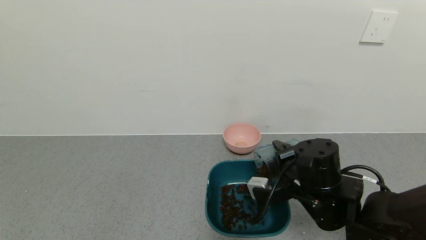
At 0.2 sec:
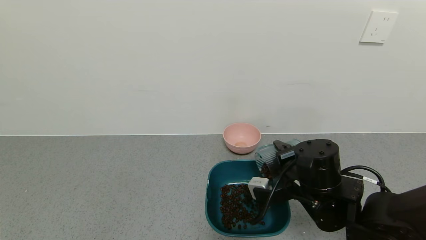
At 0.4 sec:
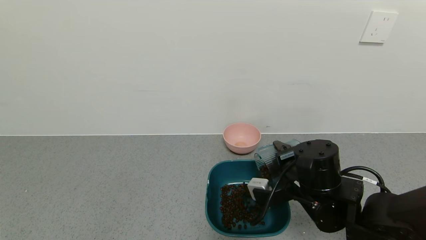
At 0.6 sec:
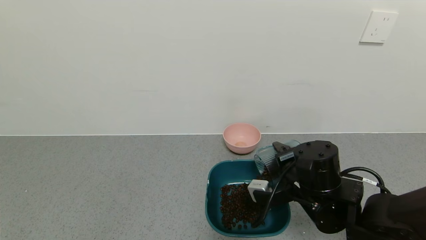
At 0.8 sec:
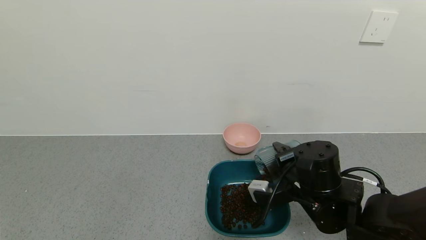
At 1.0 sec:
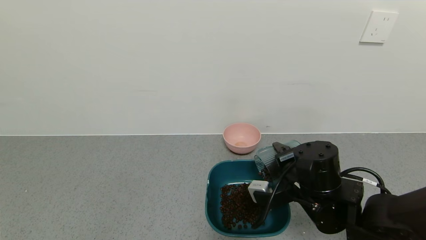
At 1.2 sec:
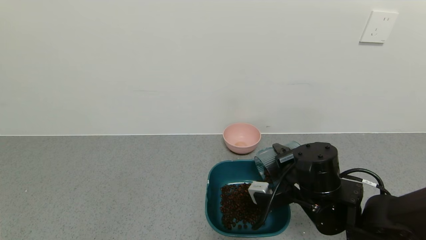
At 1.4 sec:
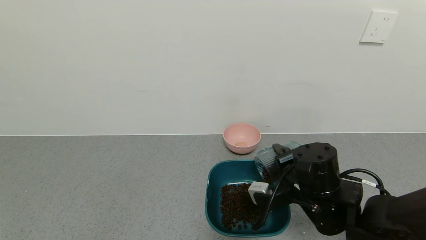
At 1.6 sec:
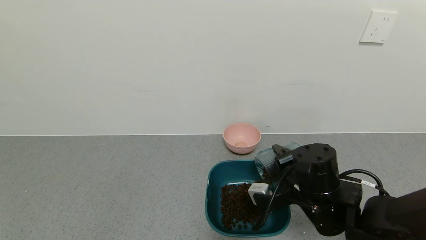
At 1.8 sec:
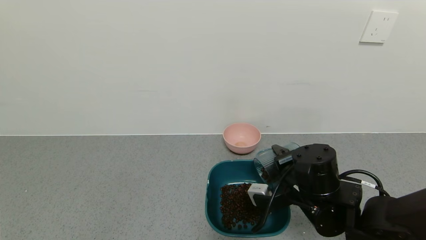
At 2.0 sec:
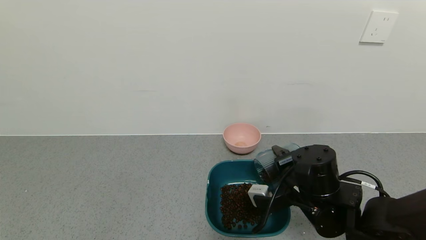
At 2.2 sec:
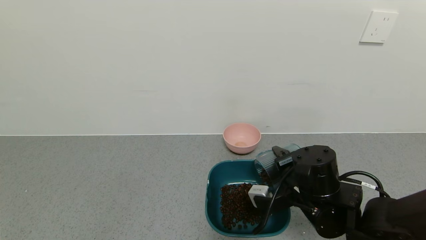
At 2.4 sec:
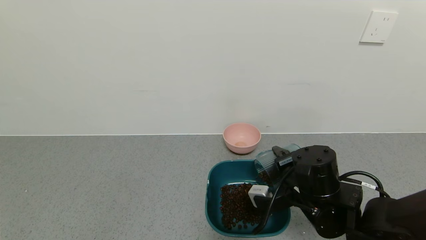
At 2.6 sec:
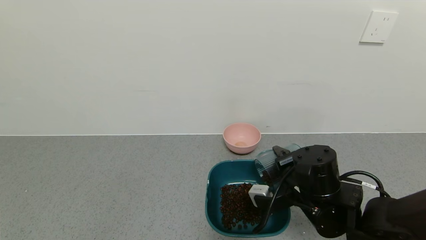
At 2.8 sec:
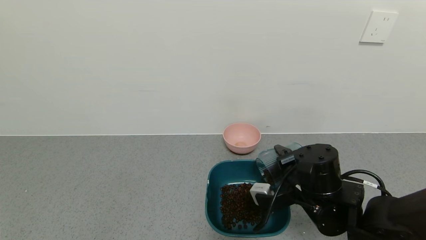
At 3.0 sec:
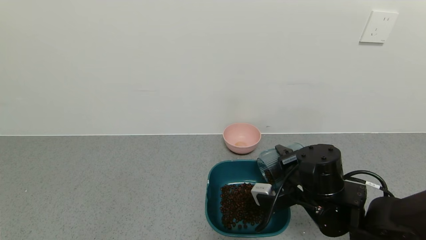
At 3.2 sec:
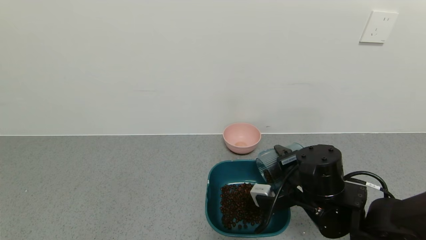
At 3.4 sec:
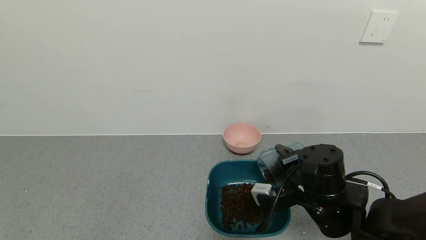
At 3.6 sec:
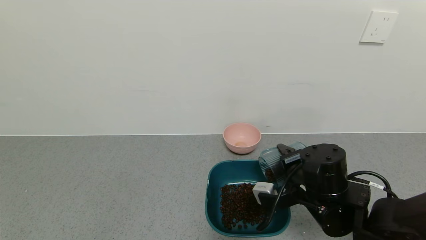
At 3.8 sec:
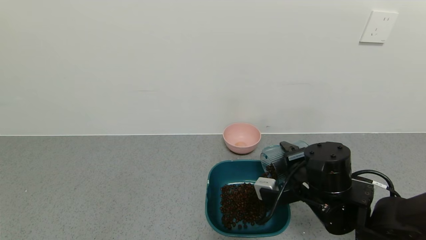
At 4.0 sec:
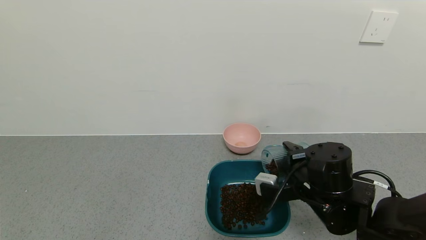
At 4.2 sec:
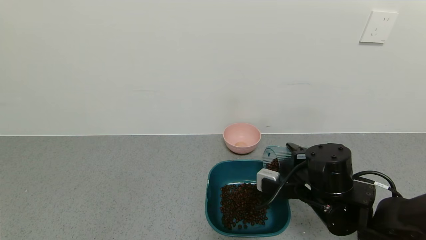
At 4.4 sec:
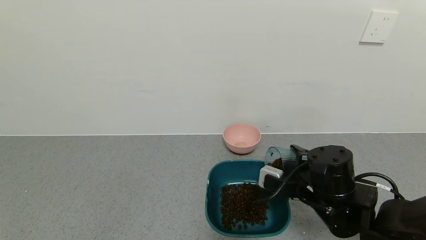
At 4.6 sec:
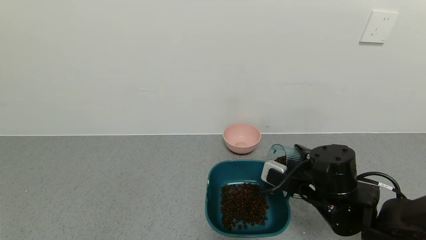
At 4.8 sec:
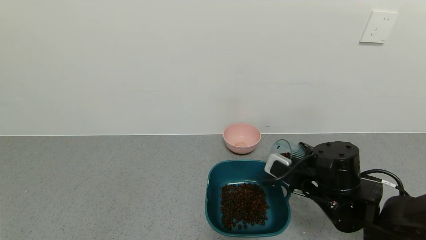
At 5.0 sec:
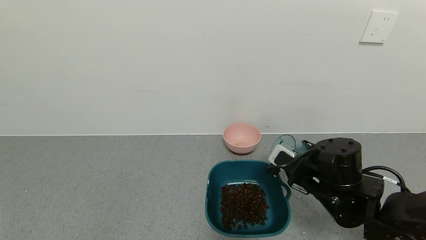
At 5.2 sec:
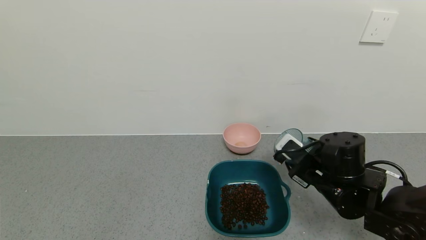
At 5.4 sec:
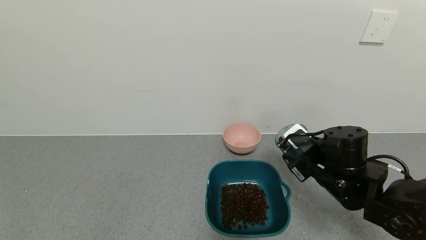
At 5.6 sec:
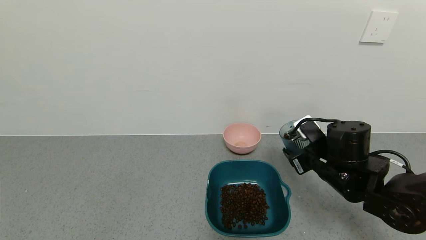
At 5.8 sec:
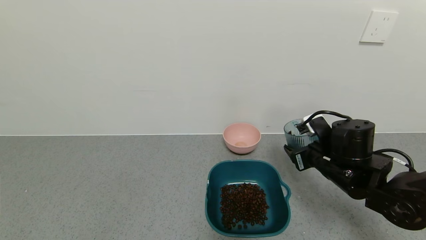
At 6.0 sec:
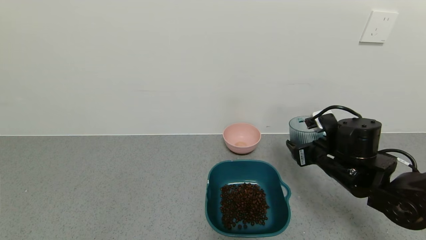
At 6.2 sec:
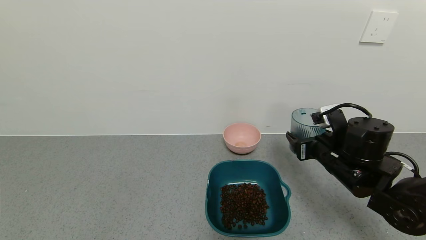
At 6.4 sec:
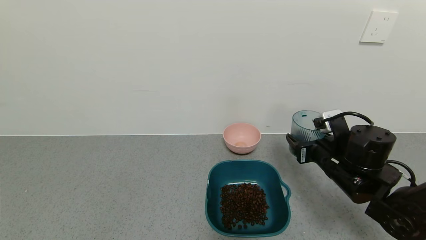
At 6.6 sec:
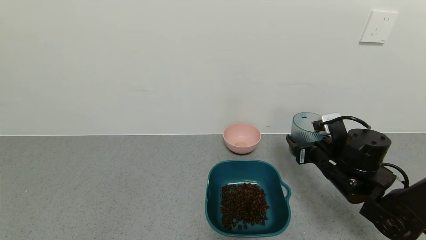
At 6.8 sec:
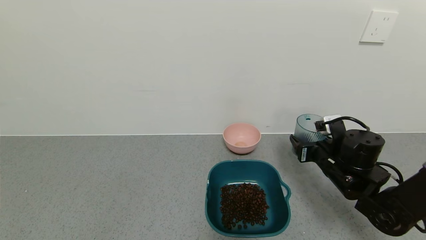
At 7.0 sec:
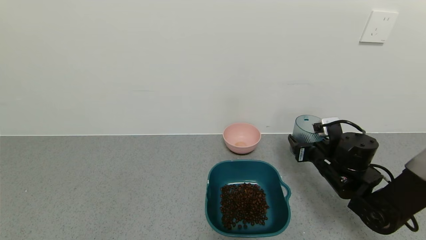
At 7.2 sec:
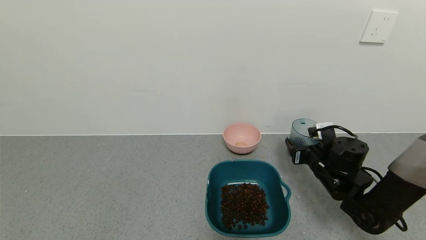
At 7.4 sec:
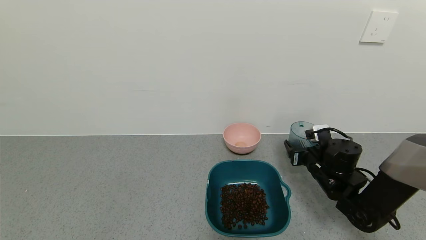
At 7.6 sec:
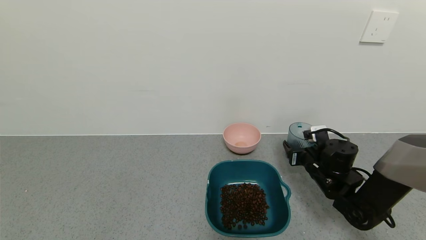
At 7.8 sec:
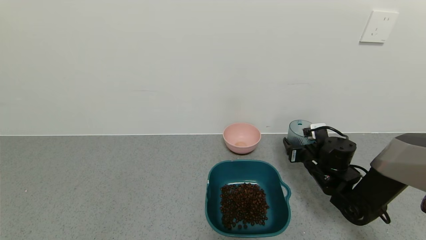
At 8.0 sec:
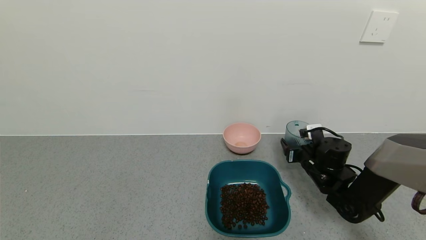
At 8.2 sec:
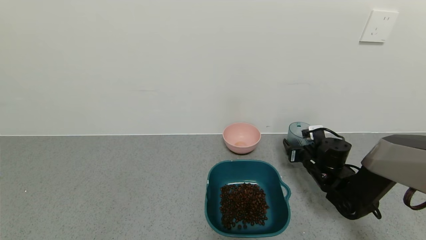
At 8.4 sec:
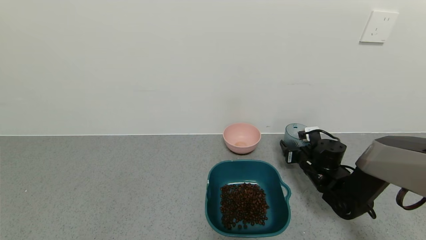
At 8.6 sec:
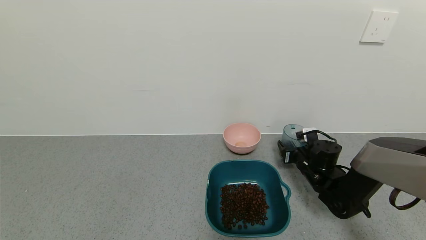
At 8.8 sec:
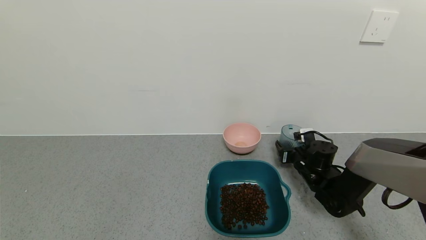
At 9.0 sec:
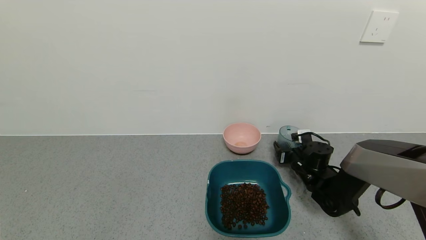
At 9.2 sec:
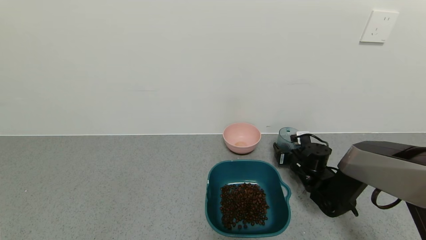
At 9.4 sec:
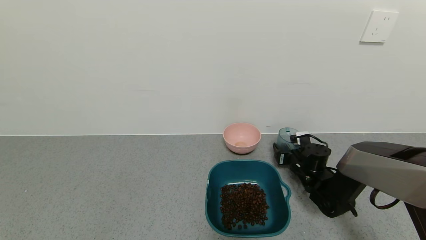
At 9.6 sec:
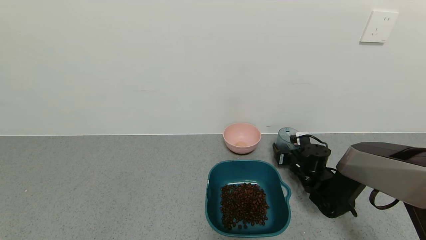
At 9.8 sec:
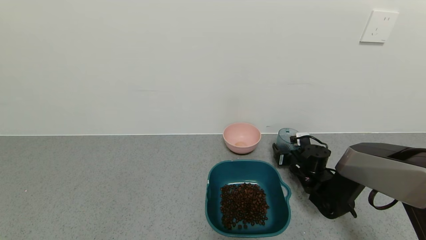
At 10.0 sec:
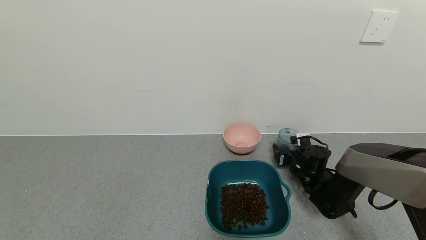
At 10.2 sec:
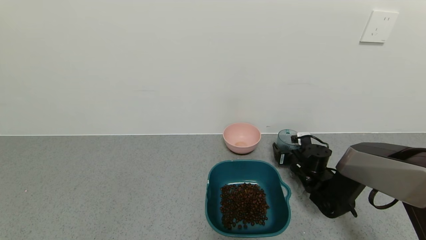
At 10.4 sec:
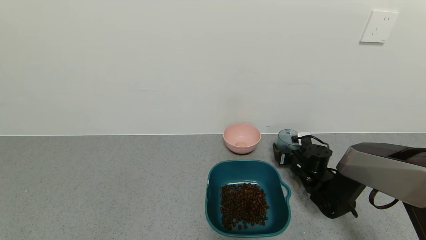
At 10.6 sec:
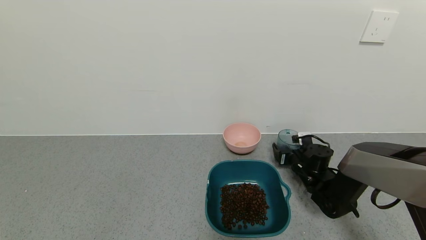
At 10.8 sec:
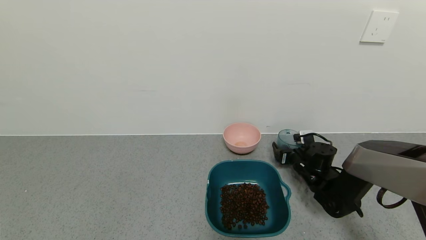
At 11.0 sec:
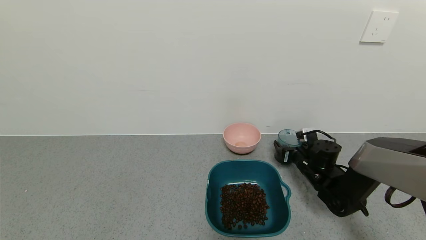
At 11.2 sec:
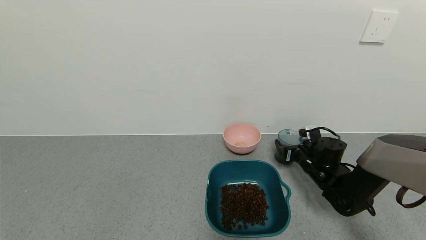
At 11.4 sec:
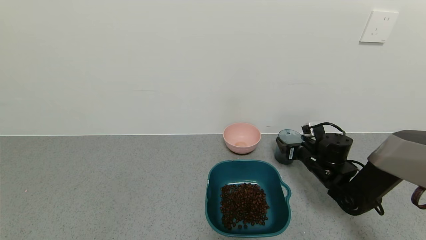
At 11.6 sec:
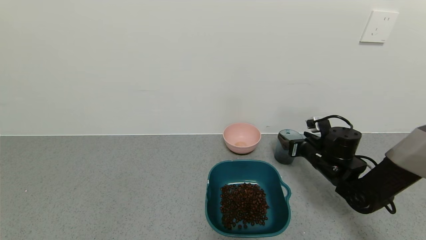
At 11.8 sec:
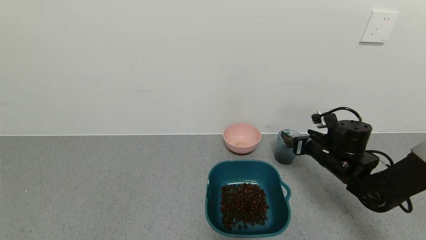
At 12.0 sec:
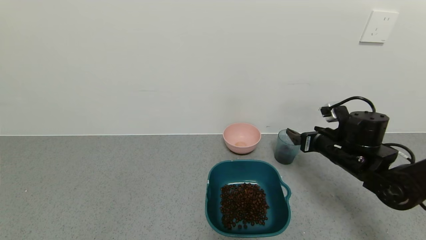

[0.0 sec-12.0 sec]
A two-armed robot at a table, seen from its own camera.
Task of the whole recording: use a gripper to pick up the cup and pour the solid into a bowl or tray.
Step, 0.0 sec to 5.4 sec: Pour the coffee beans into the green bowl with the right gripper.
Step, 5.6 sec to 12.0 sec: Place the glass cup with the right gripper.
0.0 sec to 3.0 sec: Both grippers stay about where they are.
4.4 sec to 6.0 sec: The right gripper heads to the right, covering some 5 cm.
6.0 sec to 7.6 sec: The right gripper moves downward and forward, about 10 cm.
7.6 sec to 9.0 sec: The right gripper travels forward by about 5 cm.
9.0 sec to 10.4 sec: The right gripper opens its fingers.
10.4 sec to 12.0 sec: The right gripper is displaced upward and backward by approximately 15 cm.

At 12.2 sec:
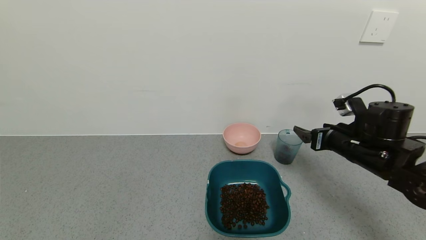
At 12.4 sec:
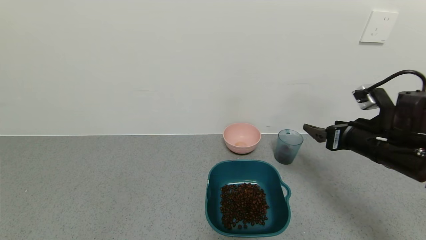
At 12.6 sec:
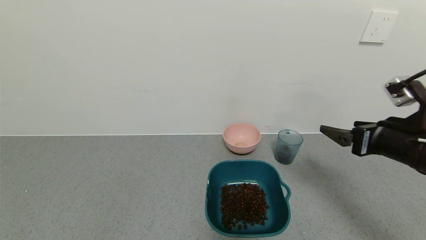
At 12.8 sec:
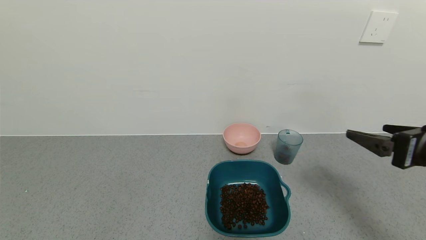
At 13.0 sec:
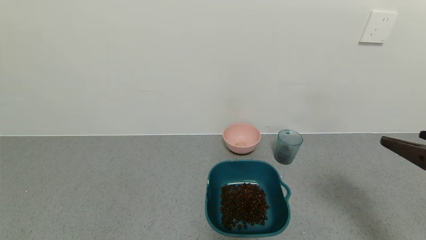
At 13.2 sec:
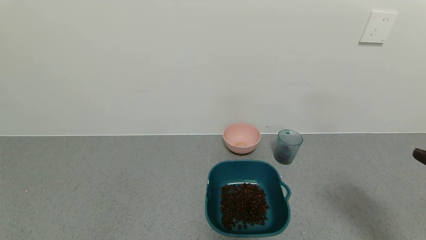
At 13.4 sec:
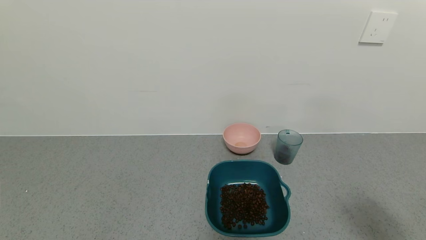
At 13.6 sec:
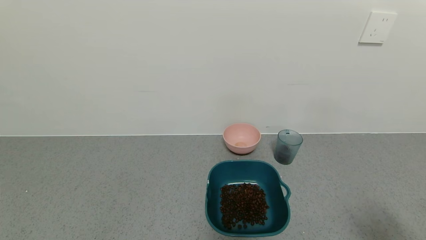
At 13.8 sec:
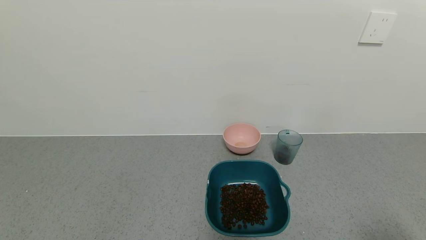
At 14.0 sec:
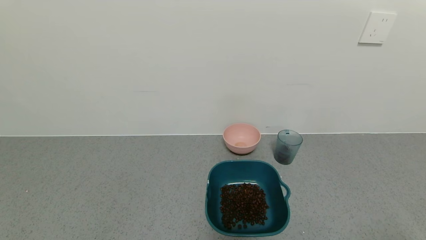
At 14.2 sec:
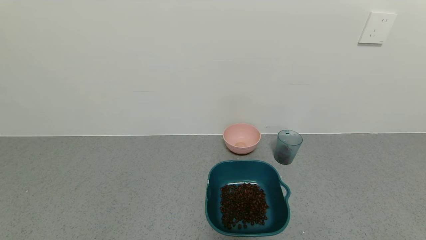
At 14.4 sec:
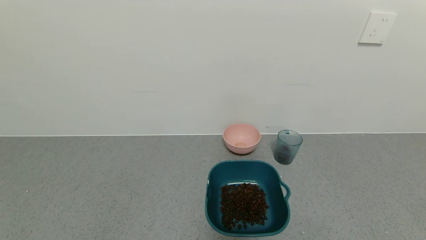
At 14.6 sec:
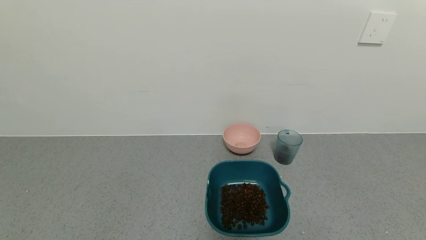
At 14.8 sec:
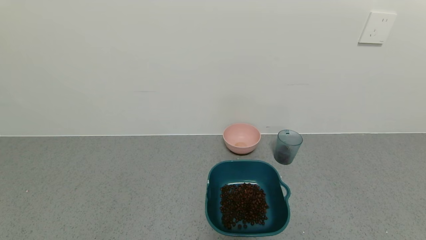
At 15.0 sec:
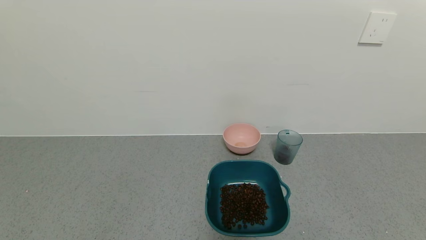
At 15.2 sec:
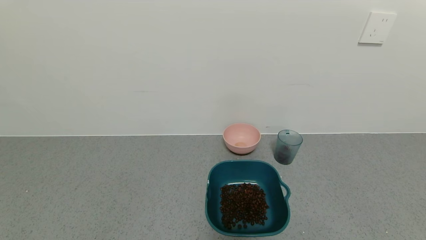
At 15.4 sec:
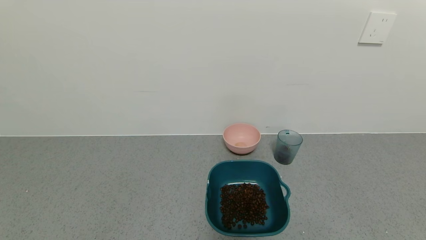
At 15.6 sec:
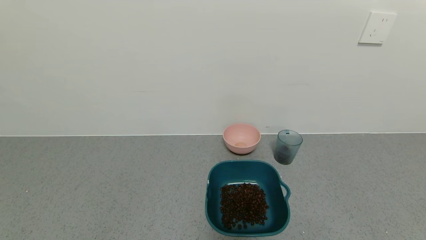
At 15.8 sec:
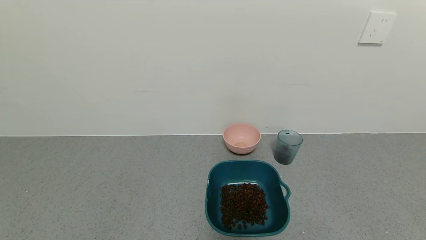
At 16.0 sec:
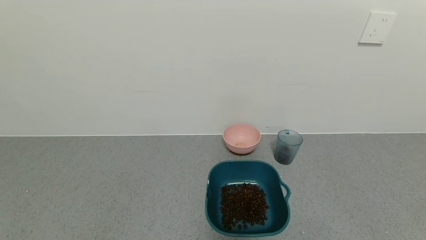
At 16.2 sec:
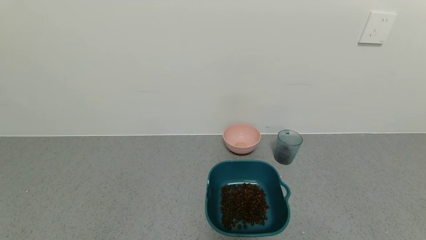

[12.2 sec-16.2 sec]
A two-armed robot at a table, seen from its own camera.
Task of the whole recording: use a gripper to pick up the cup and pour the solid into a bowl or tray.
12.2 sec to 13.6 sec: The right gripper travels backward by approximately 30 cm.
13.6 sec to 14.8 sec: The right gripper shifts some 15 cm downward and backward.
